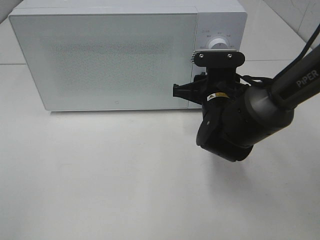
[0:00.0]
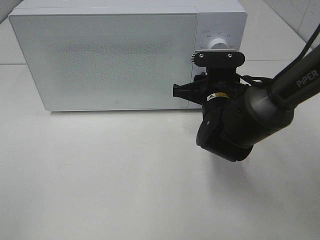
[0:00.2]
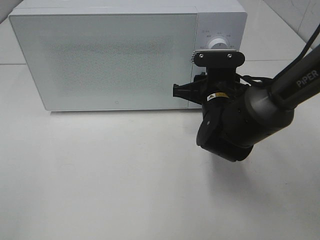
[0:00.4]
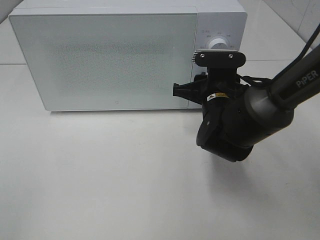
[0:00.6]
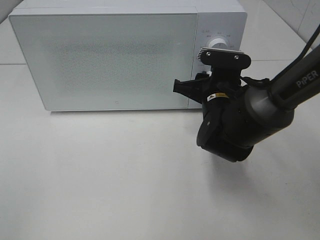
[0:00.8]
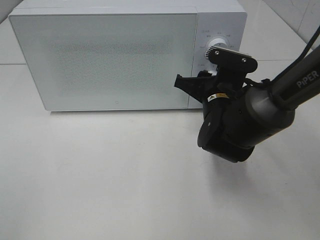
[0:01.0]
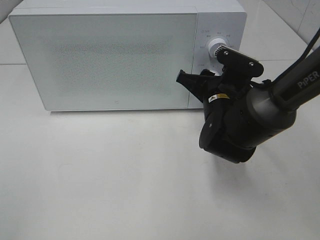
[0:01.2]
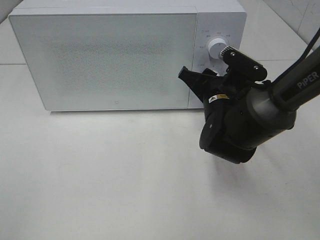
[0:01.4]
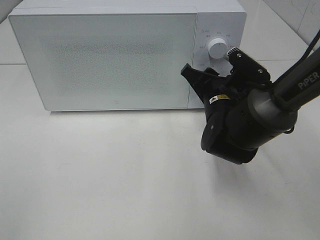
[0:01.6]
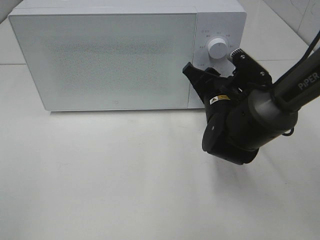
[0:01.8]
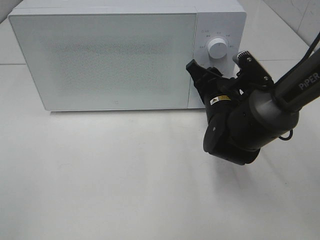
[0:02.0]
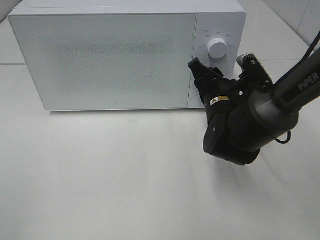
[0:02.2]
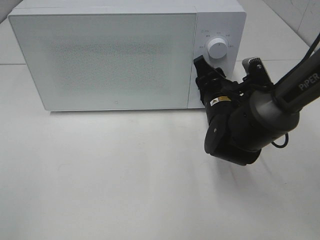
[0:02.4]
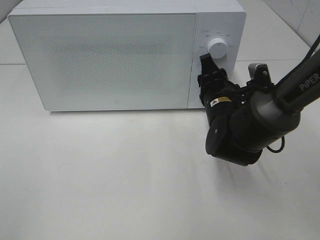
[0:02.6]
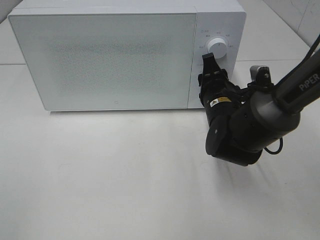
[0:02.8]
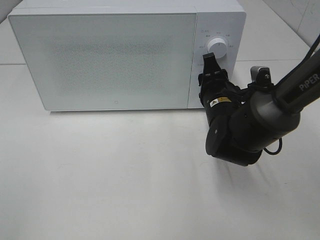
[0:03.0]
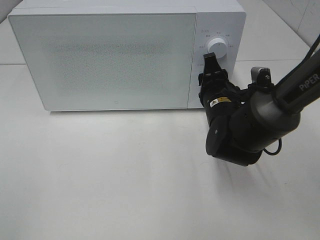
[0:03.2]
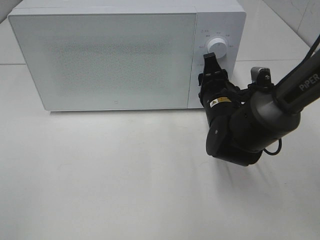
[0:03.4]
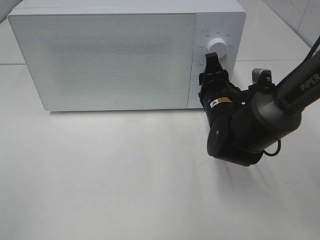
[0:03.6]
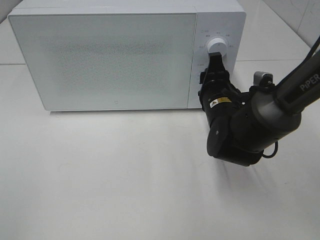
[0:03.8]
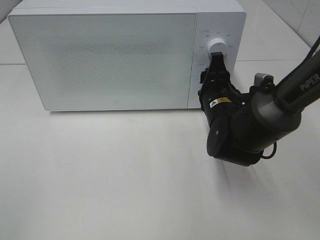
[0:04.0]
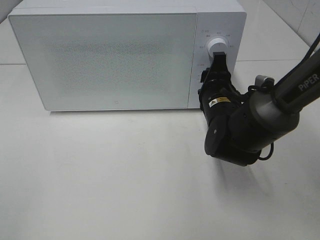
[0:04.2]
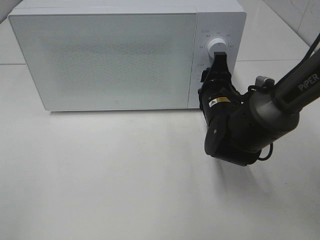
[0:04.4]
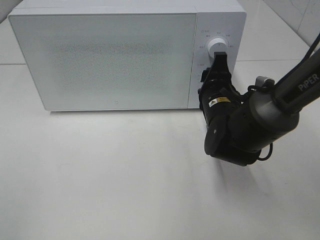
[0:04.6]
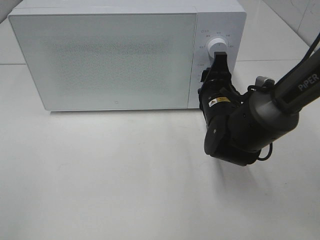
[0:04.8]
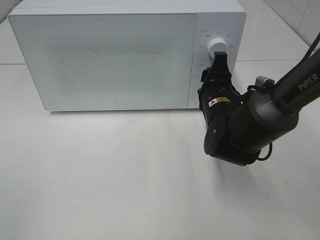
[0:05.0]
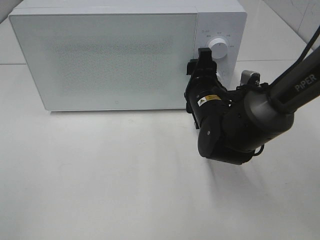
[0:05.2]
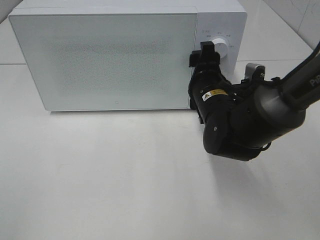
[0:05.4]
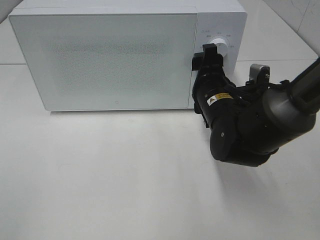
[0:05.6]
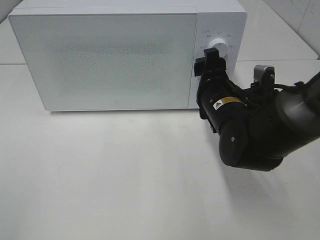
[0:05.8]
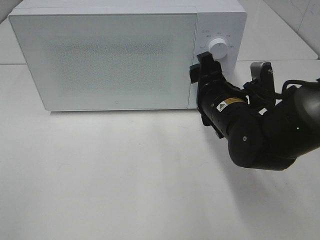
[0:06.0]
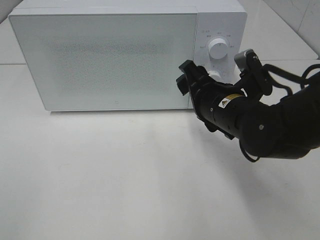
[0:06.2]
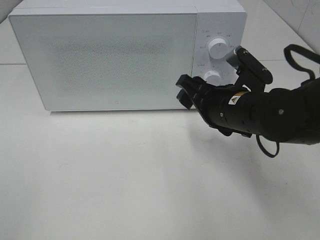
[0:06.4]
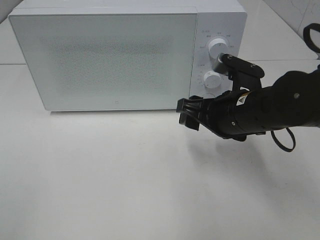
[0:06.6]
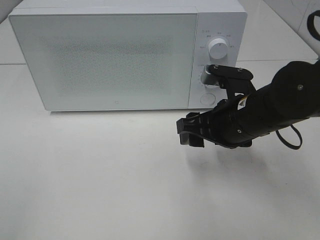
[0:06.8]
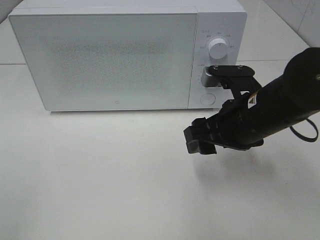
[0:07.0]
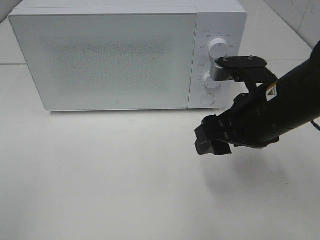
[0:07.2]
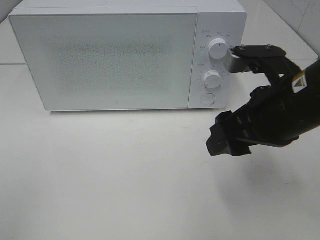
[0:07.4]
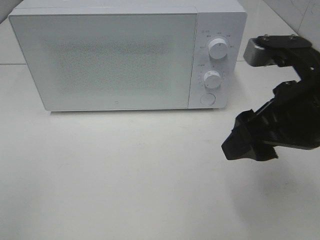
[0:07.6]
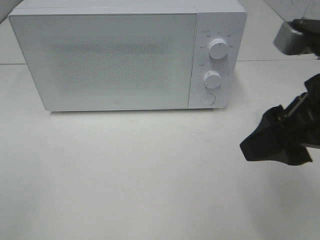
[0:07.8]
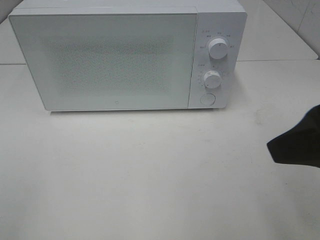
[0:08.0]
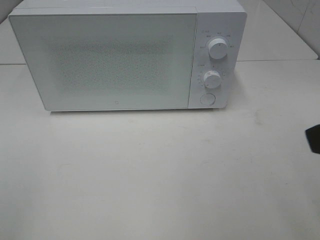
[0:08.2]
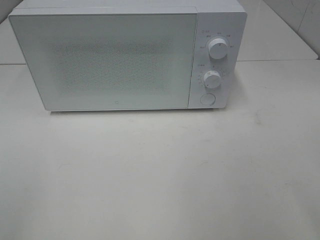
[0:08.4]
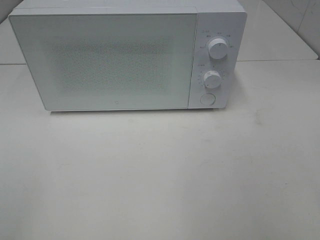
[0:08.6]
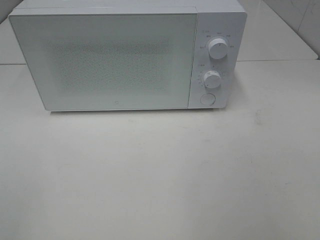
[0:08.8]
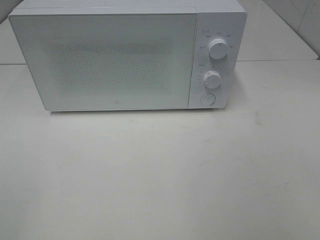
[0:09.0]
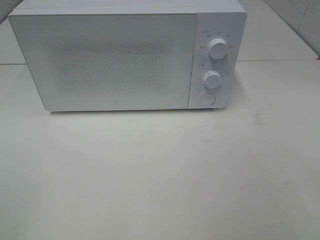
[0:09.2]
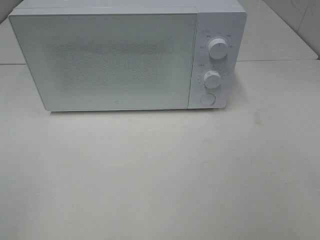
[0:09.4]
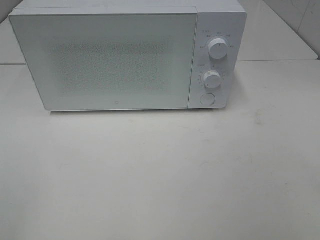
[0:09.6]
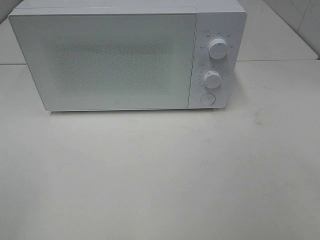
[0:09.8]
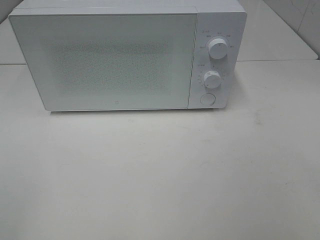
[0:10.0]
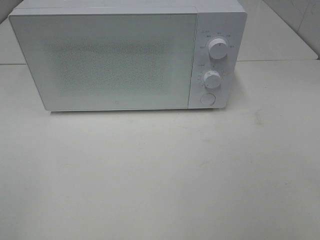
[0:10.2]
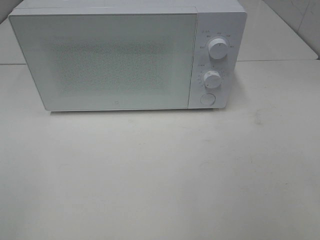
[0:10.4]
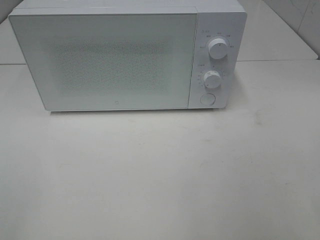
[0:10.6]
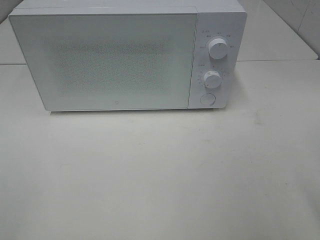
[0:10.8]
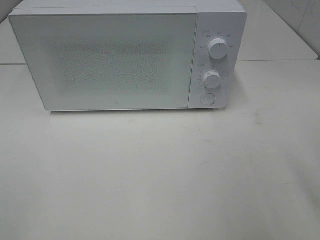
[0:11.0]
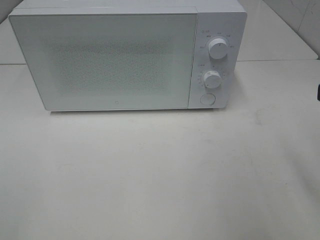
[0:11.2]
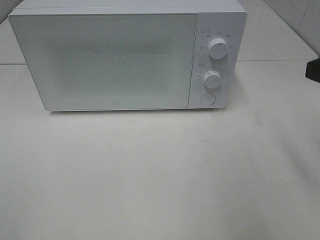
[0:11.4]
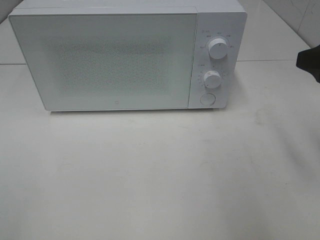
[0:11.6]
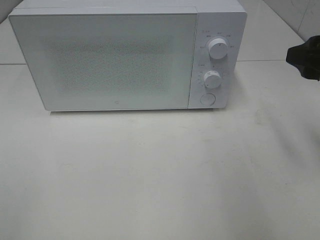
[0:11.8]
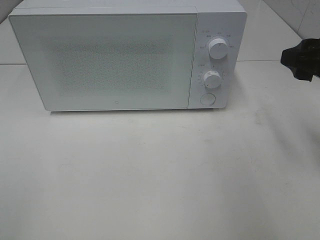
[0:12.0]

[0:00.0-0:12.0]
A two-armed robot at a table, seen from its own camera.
Task of the whole recording: Heat the burger.
Step, 0:00.0 to 0:05.2: Right hand: twist timer button.
0:03.0 to 0:04.4: There are only small adjustments of the grippers.
0:06.0 to 0:07.6: The right gripper goes approximately 15 cm upward, backward and to the right.
0:07.6 to 0:09.0: The right gripper heads backward and to the right, covering roughly 20 cm.
0:10.4 to 0:12.0: The right gripper goes roughly 20 cm forward.

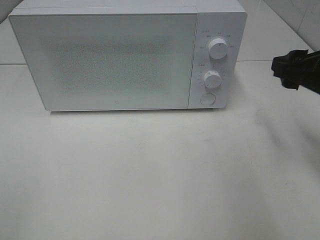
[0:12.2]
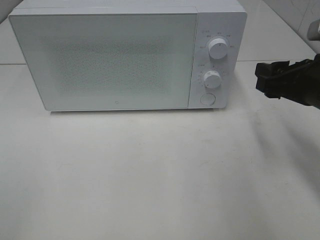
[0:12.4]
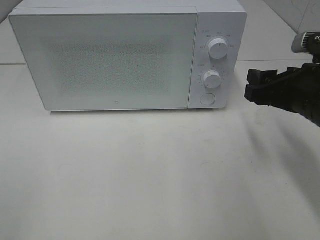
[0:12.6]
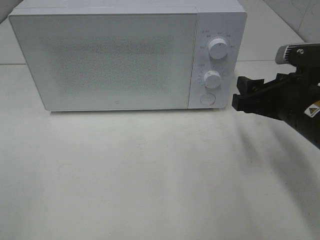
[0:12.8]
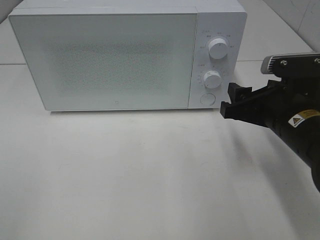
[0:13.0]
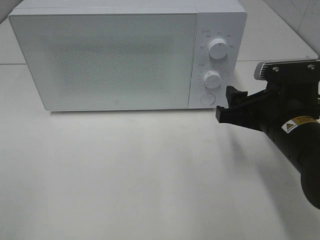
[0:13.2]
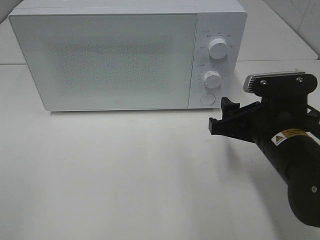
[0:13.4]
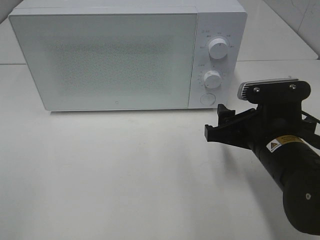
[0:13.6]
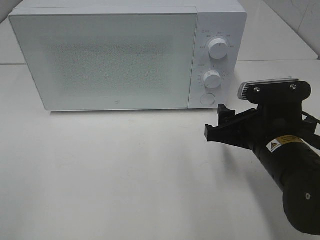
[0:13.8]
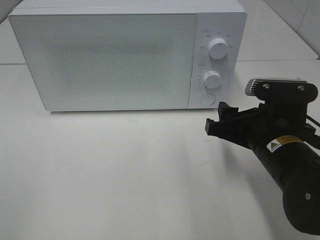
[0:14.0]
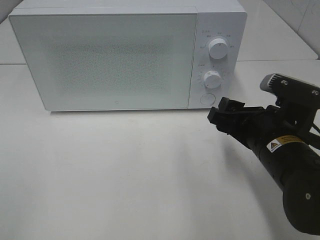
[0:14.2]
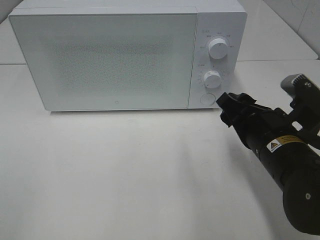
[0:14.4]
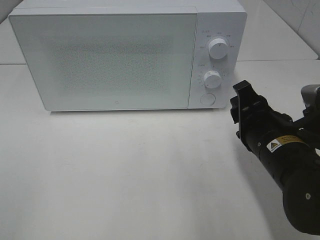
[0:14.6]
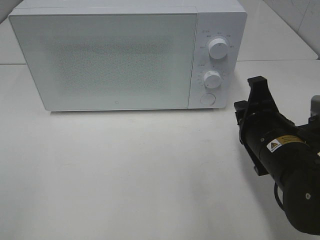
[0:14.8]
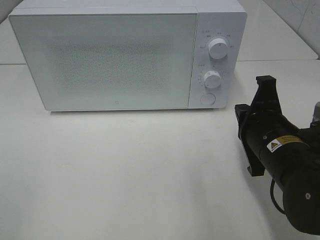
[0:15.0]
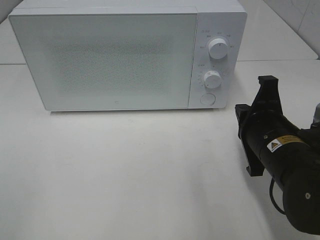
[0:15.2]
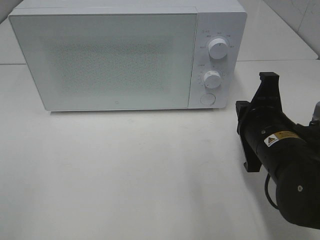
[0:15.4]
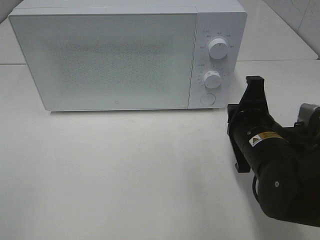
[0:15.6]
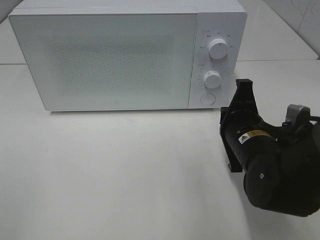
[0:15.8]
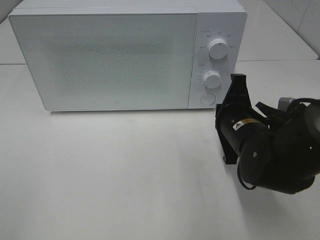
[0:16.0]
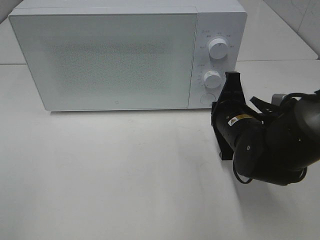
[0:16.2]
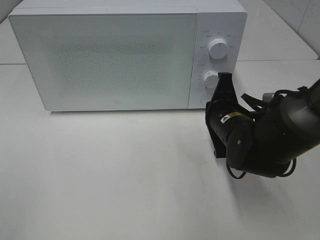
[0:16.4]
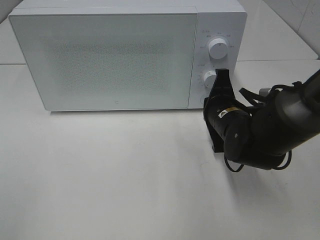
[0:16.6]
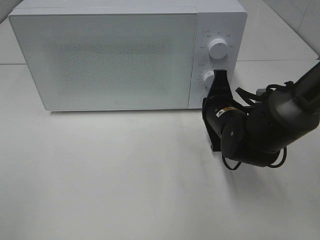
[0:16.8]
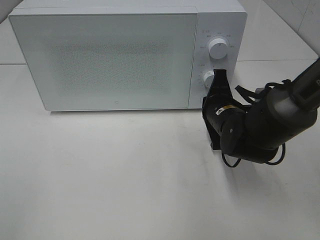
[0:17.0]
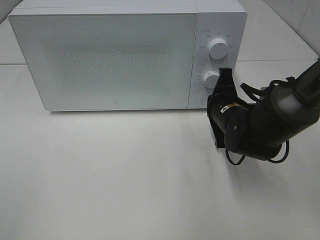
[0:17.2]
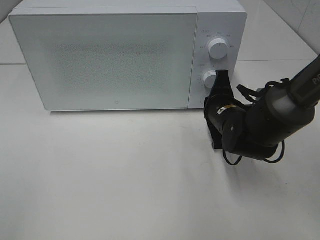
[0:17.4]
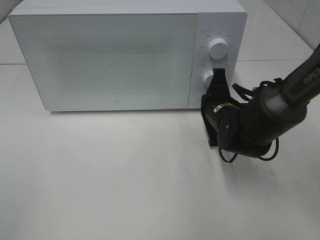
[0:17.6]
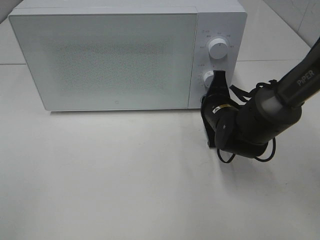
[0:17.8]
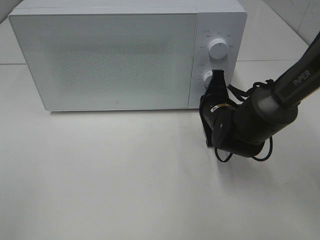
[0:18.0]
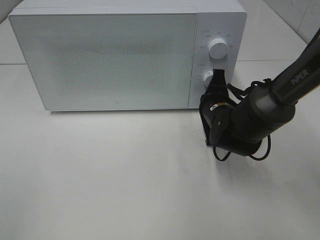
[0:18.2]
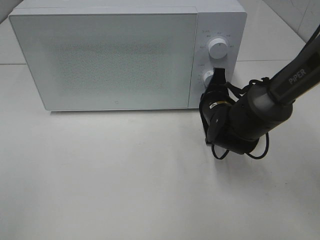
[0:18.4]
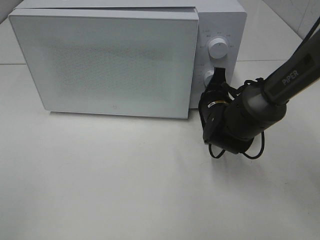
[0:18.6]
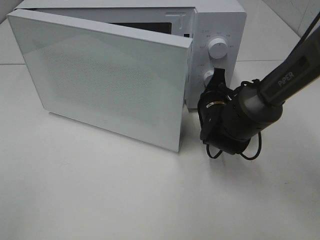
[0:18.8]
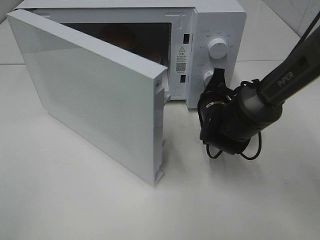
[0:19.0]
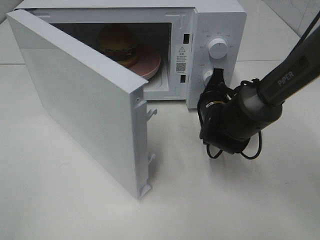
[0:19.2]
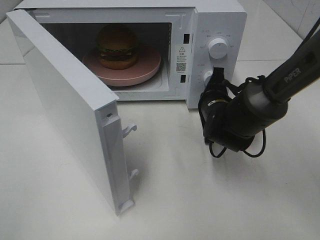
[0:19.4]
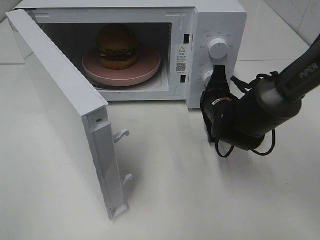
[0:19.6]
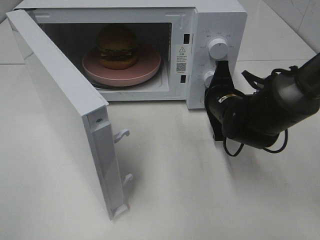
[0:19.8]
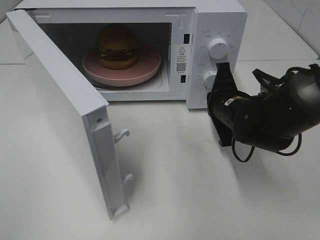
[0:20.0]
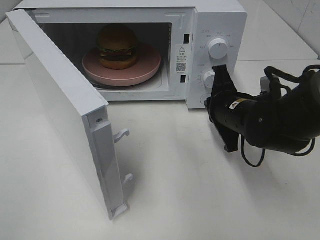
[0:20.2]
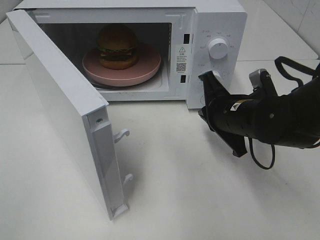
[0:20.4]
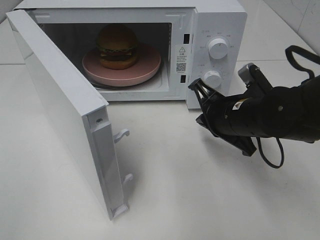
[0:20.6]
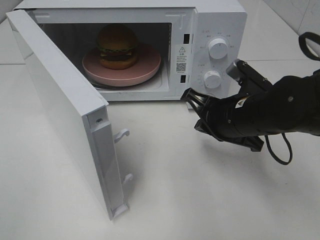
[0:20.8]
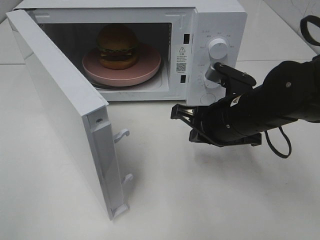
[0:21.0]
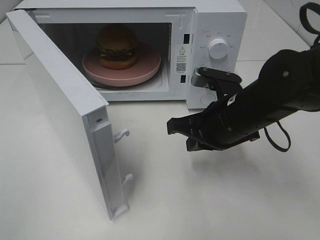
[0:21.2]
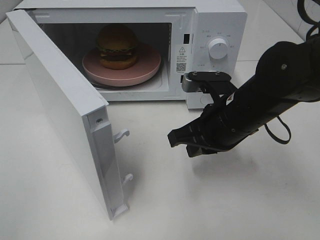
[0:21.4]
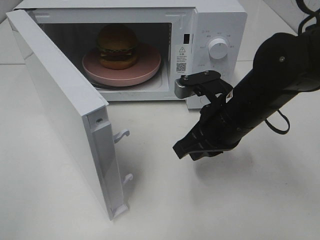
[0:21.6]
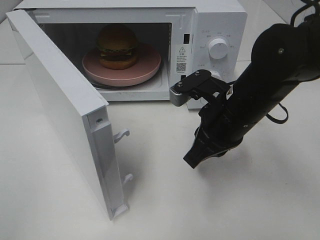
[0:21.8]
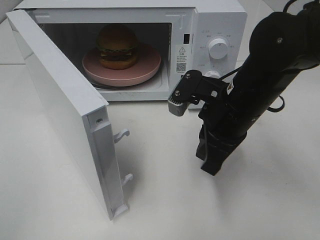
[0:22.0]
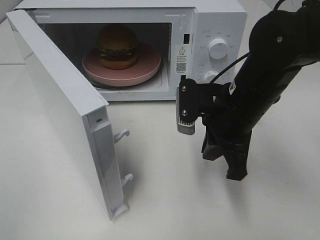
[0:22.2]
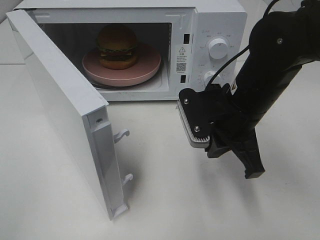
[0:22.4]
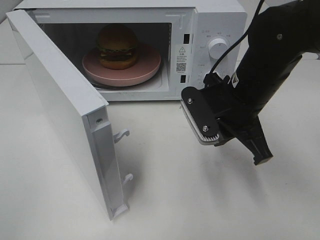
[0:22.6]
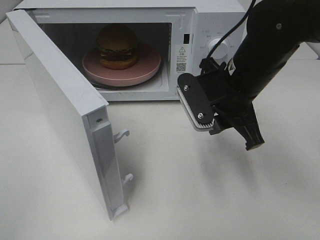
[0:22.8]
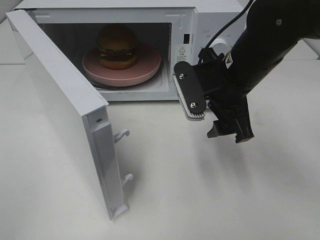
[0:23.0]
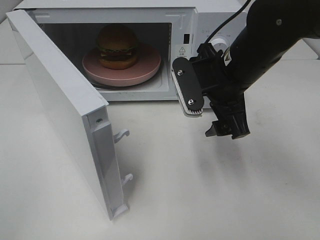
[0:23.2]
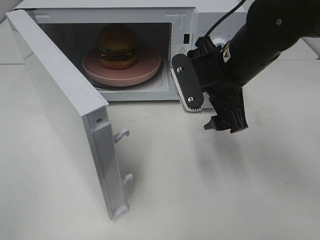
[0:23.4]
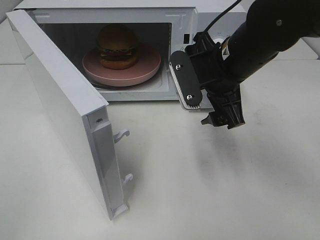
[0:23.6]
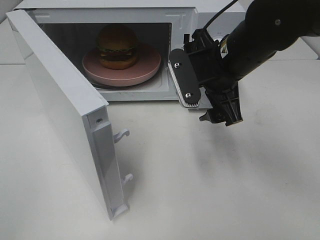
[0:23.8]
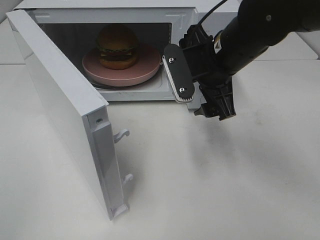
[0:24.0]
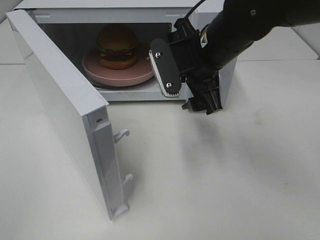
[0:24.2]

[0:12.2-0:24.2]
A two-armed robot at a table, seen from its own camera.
Task of the whole recording: Heat the burger.
Step, 0:12.2 to 0:20.4: Right hand: press the switch.
0:12.2 to 0:13.8: The right gripper moves to the left and downward, some 15 cm.
0:13.8 to 0:15.2: The right gripper closes up.
0:15.2 to 0:16.6: The right gripper goes approximately 10 cm forward.
0:16.6 to 0:18.2: The grippers stay close to where they were, moving slightly.
0:19.8 to 0:21.2: The right gripper goes roughly 5 cm backward.
0:22.6 to 0:24.2: The right gripper goes approximately 5 cm forward, and opens.
